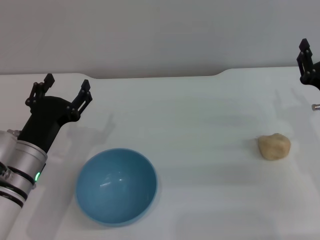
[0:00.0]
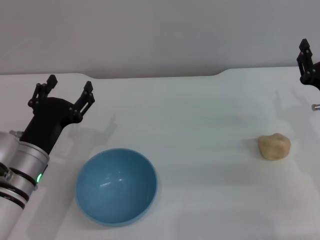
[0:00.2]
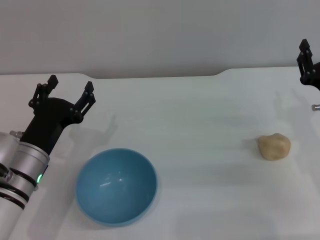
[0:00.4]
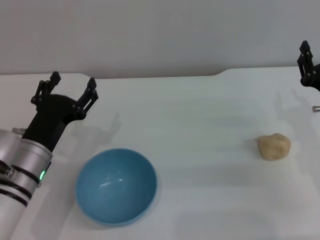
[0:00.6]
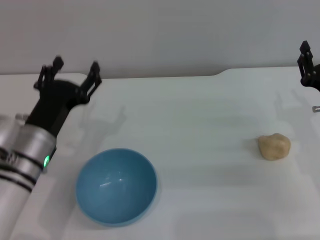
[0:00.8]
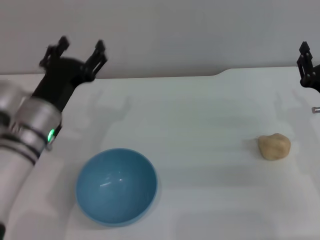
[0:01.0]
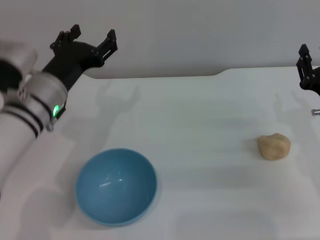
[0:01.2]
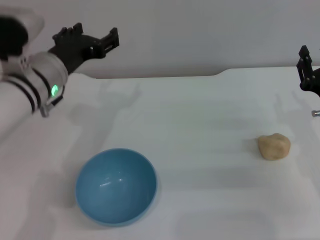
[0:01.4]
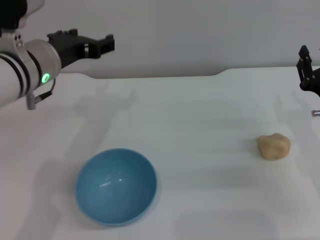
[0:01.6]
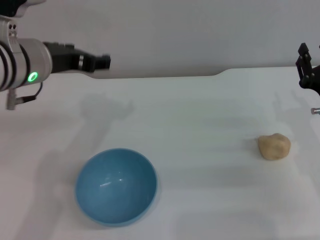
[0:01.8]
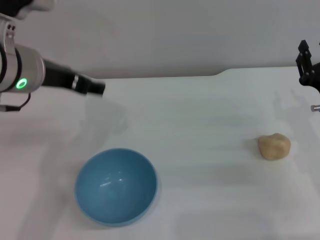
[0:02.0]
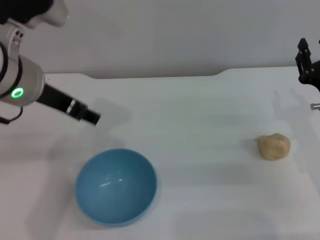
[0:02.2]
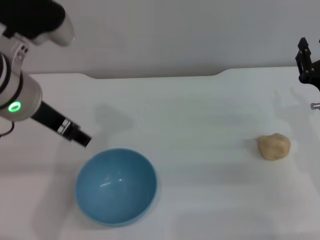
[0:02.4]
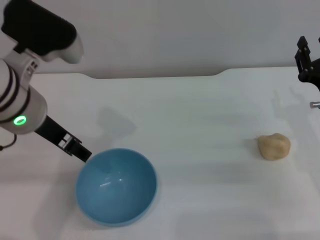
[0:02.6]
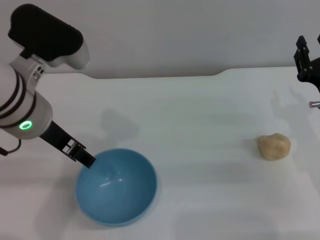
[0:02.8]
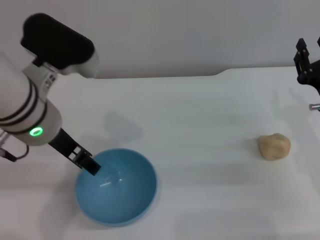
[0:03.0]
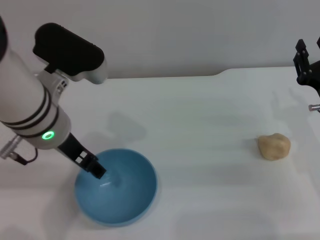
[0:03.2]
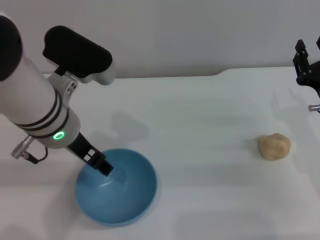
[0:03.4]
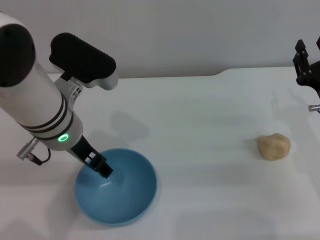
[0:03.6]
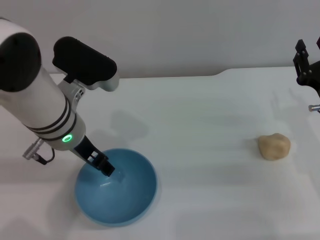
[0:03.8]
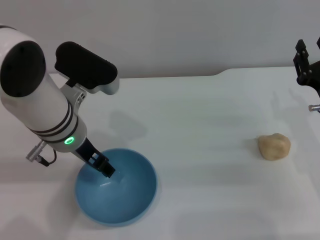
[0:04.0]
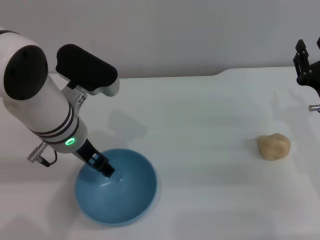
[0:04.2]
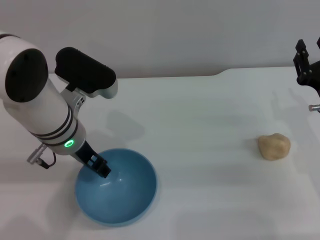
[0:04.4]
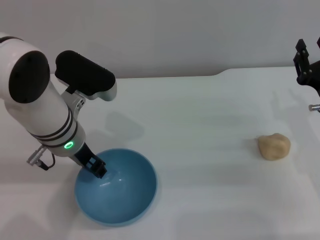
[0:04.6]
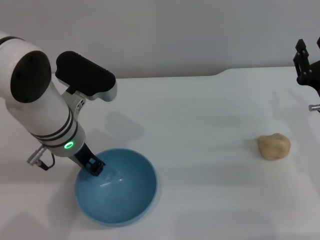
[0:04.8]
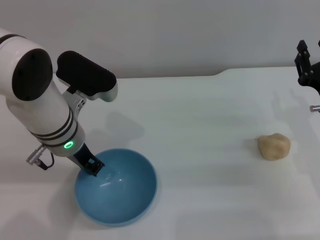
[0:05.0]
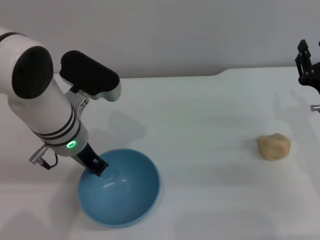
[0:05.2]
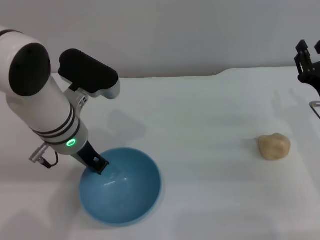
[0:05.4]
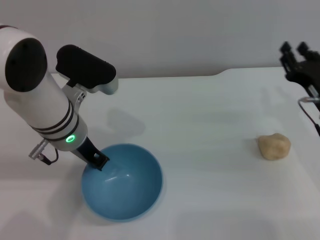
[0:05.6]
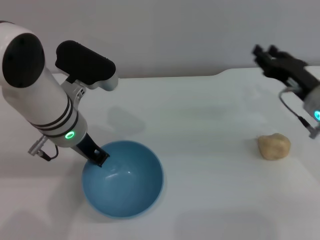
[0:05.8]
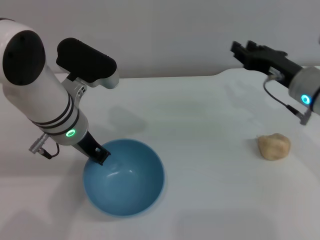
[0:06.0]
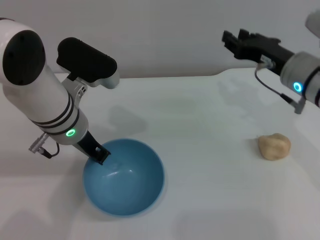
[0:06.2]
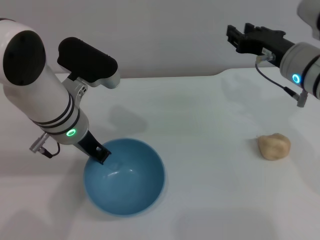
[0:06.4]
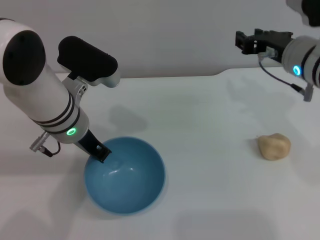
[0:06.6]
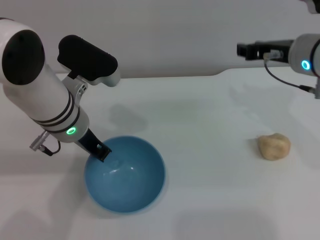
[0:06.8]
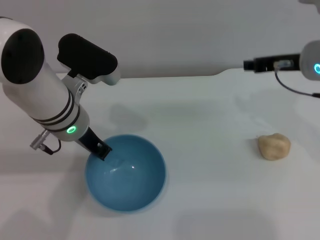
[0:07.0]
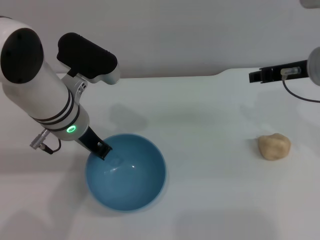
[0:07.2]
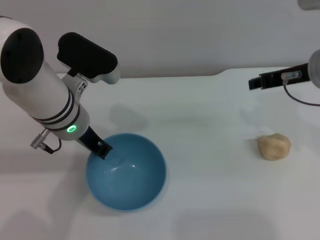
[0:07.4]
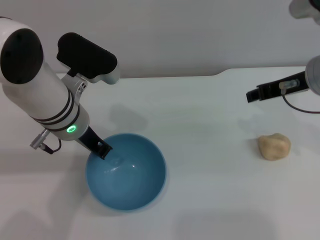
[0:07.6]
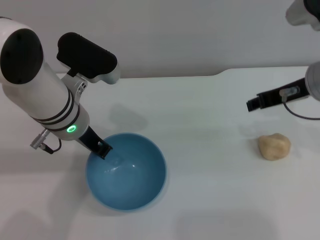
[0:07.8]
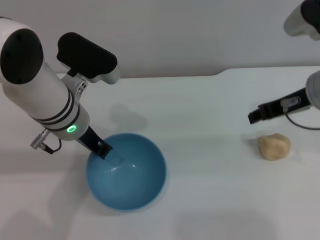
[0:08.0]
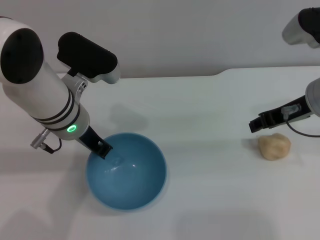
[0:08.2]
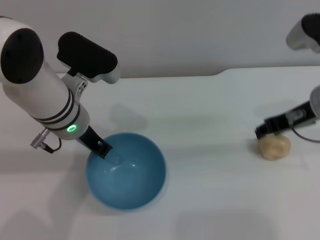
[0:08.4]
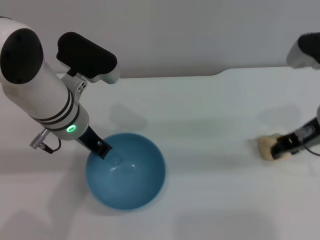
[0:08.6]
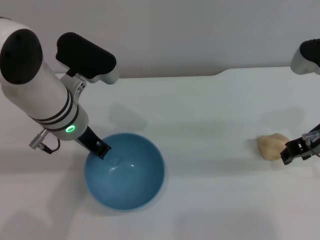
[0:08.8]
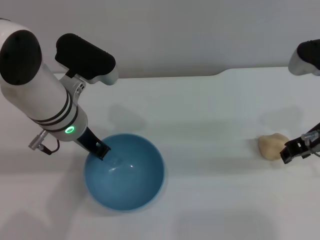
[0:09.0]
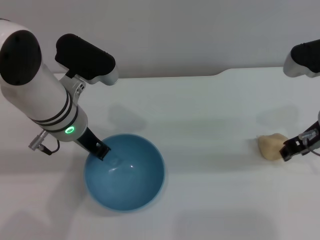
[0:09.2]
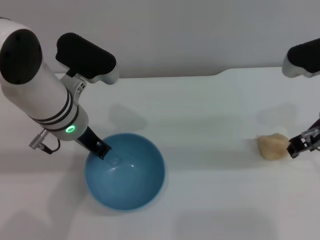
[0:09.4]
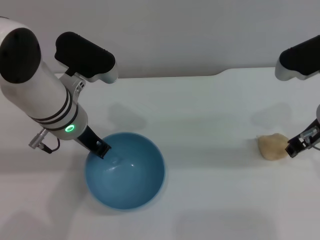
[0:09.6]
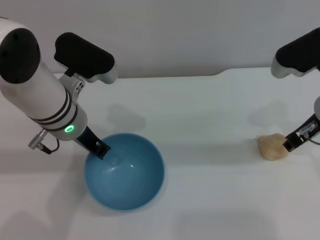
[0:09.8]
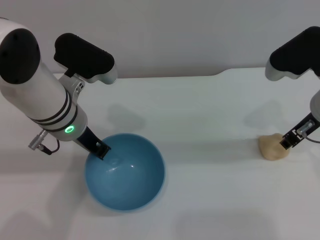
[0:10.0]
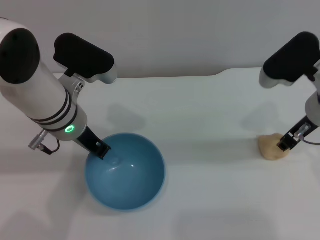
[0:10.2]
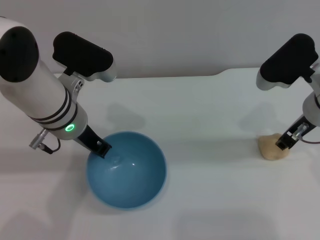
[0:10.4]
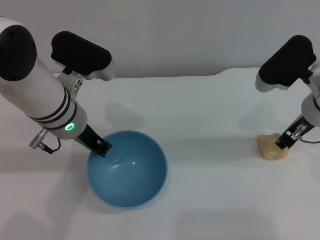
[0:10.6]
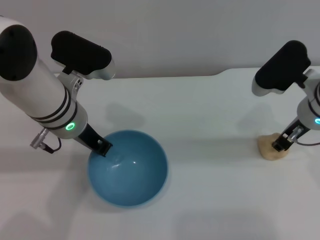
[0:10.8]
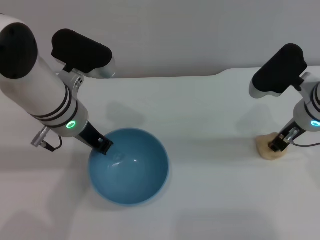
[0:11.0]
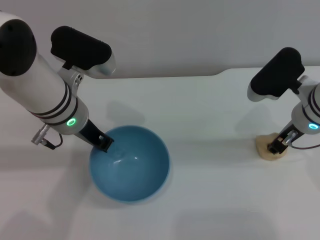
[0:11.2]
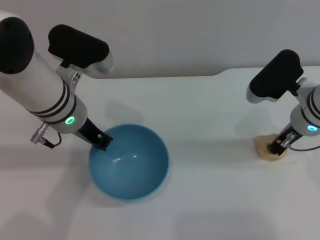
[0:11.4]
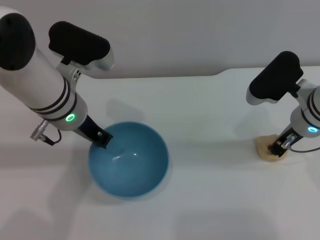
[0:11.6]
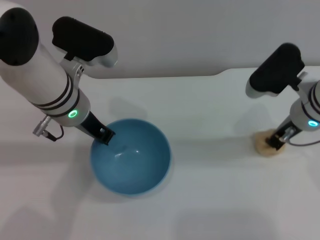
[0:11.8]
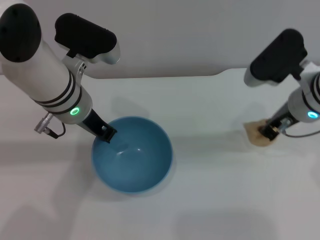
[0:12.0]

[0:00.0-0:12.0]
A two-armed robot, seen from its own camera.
Task of the whole recording: put the egg yolk pastry into the blue bowl and pour it out repeatedly.
Step, 0:00.0 to 0:06.6: Pick up the bowl with the left gripper.
0:00.0 to 0:01.6: The left gripper goes about 15 cm upward and forward.
0:01.6 to 0:03.0: The left gripper shifts by approximately 5 cm.
0:03.0 to 0:04.4: The left gripper heads downward, covering approximately 5 cm.
0:04.4 to 0:06.0: The left gripper closes its fingers. Meanwhile the right gripper is displaced forward by roughly 5 cm.
0:06.0 to 0:07.6: The right gripper goes approximately 10 cm upward.
0:10.4 to 0:12.0: The right gripper closes up.

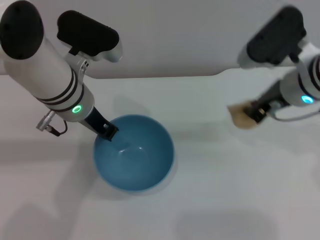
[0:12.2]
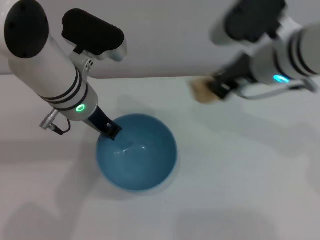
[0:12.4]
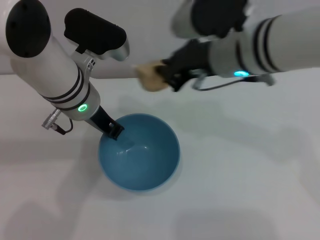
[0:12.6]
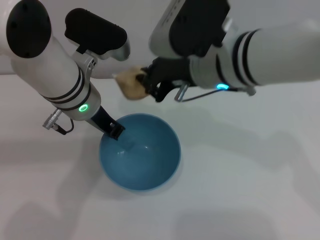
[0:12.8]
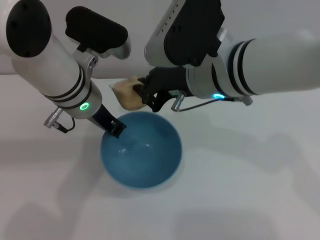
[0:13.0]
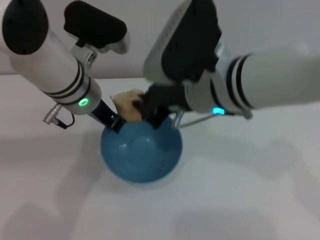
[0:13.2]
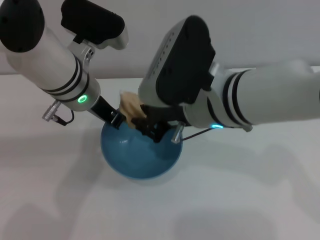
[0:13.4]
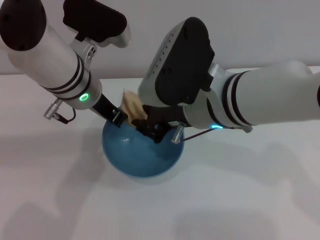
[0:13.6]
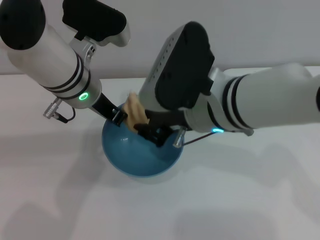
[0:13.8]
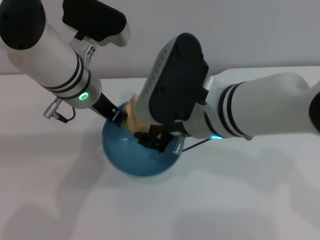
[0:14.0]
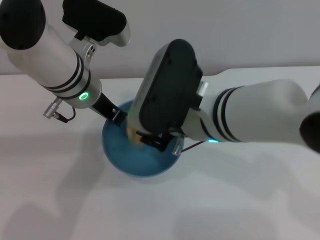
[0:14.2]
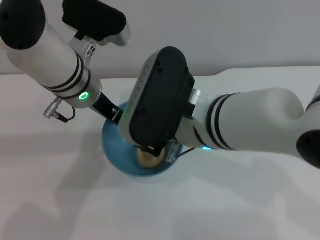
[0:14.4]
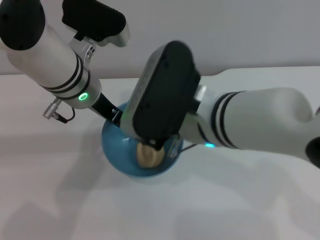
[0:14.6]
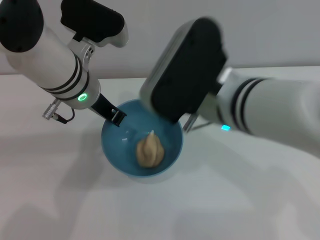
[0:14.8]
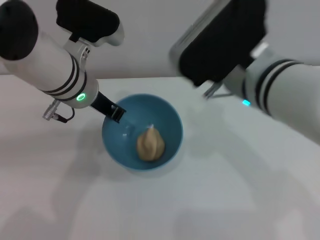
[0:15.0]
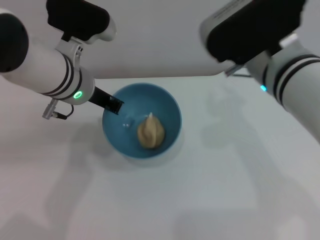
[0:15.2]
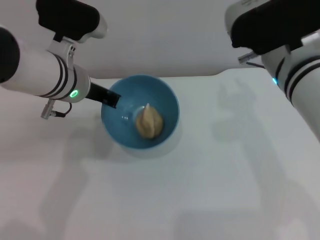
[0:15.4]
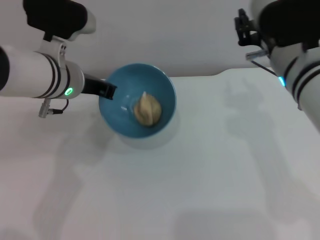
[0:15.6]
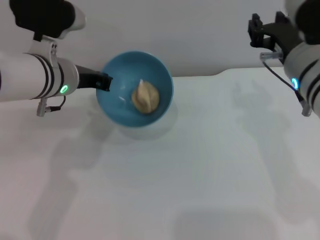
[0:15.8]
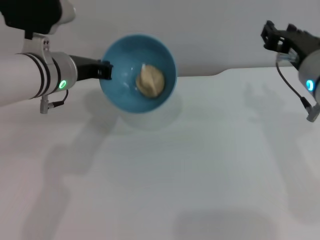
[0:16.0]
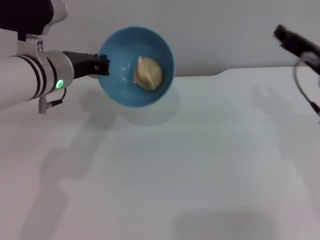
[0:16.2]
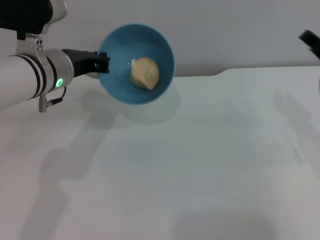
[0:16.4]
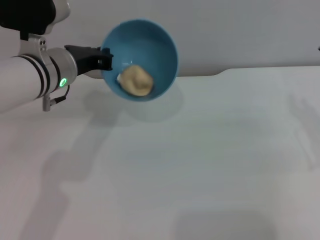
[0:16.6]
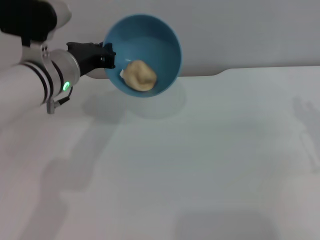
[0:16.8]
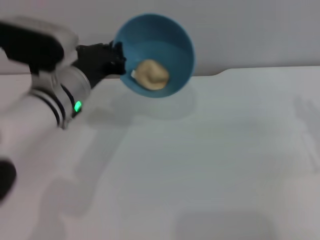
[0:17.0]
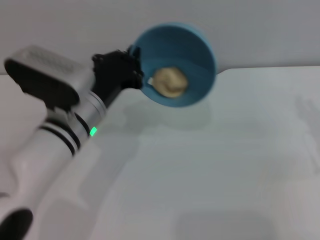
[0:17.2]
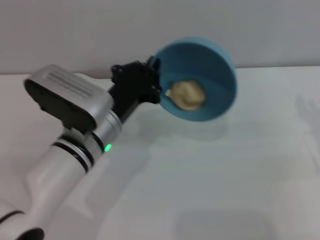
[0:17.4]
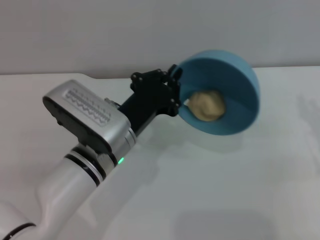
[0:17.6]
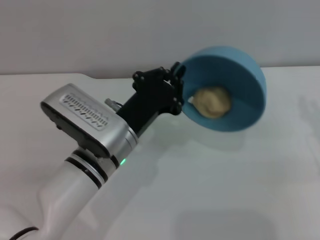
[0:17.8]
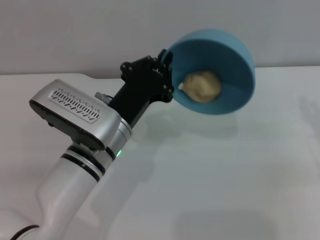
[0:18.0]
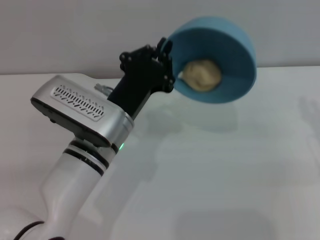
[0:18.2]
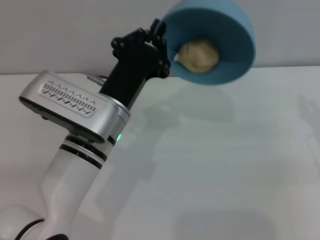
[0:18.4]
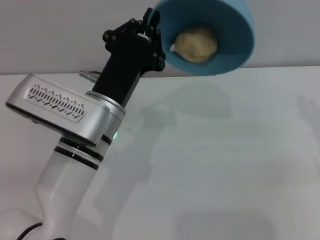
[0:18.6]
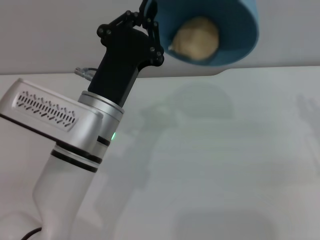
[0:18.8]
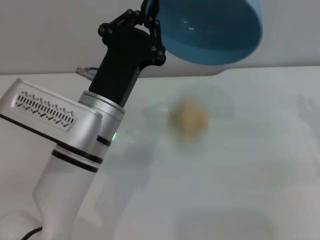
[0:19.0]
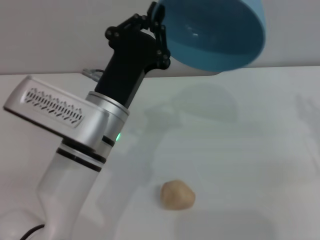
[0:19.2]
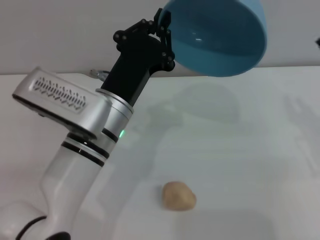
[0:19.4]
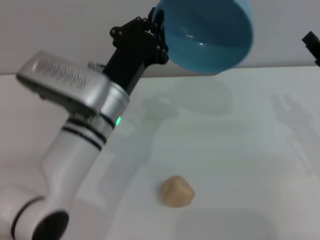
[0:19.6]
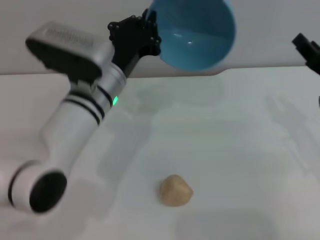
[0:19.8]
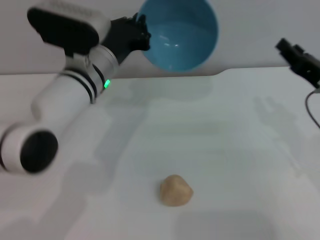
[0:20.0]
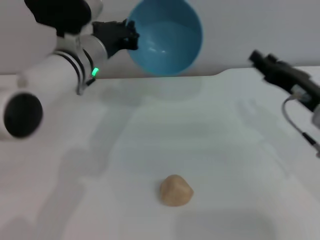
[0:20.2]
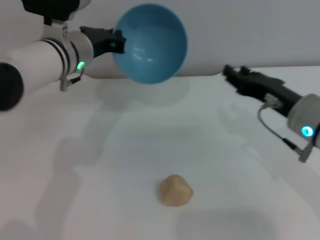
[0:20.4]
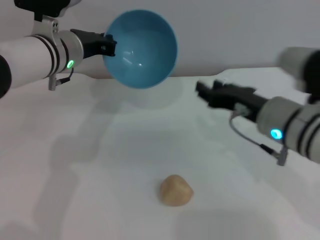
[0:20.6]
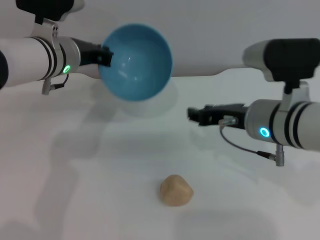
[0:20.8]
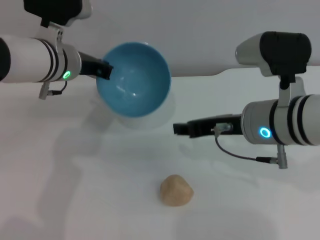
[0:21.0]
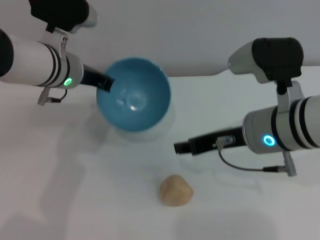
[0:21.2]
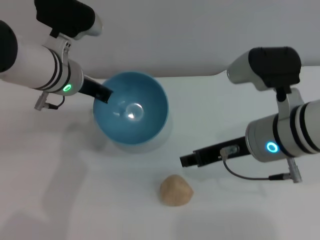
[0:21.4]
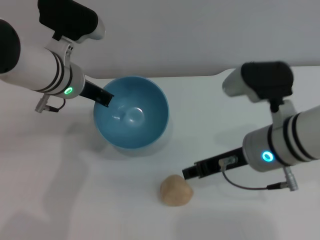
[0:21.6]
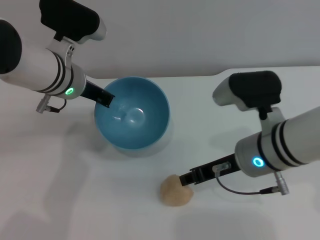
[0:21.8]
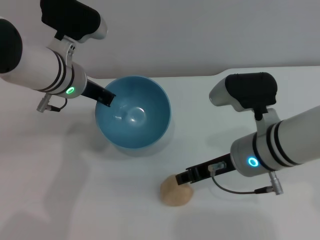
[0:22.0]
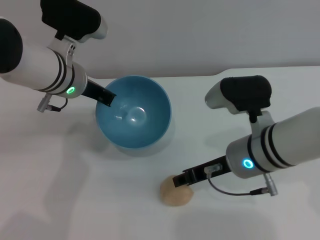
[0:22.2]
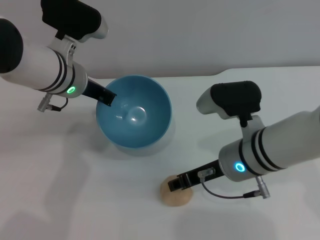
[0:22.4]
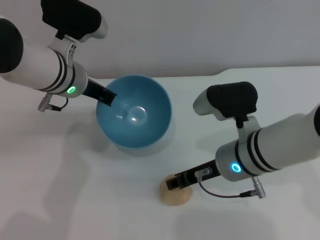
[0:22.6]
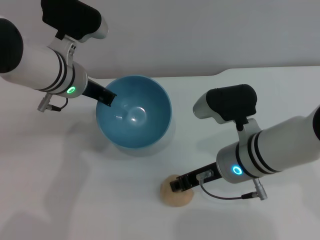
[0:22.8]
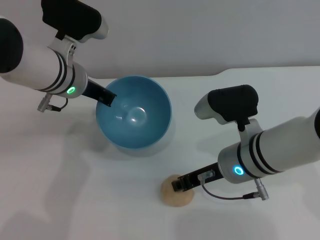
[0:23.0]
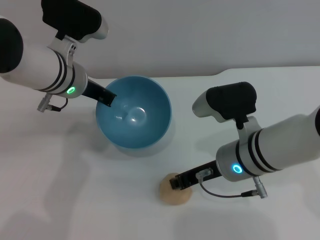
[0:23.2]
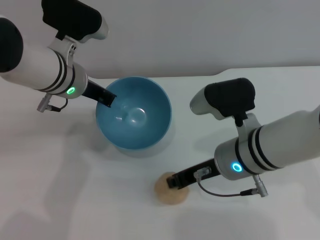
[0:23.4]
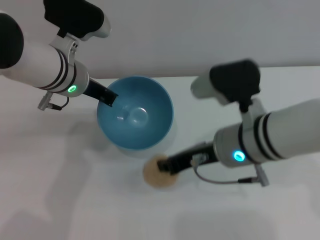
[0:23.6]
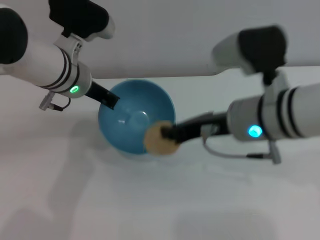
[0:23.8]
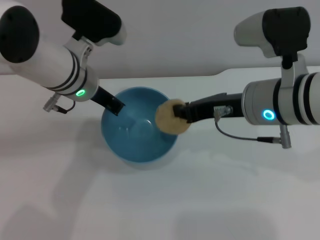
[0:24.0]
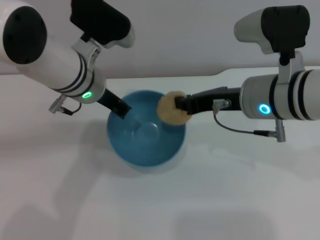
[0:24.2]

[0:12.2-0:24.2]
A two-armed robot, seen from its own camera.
Task of the whole recording: put the egg yolk pastry into the blue bowl and pour it out repeatedly.
Step, 0:12.4 to 0:14.8: Place the egg yolk pastry into the bowl.
Step, 0:15.0 to 0:19.2: Pour the egg yolk pastry out of bowl.
Step, 0:19.4 to 0:23.6: Pick up the egg yolk pastry with the right gripper.
0:12.2 to 0:13.8: The right gripper goes about 15 cm to the left and backward.
0:13.8 to 0:15.2: The right gripper moves to the right, approximately 5 cm, and opens up.
0:15.2 to 0:16.6: The right gripper moves to the right and downward, approximately 20 cm.
0:16.6 to 0:18.2: The left gripper moves backward, to the right and downward, roughly 15 cm.
0:18.2 to 0:19.8: The left gripper shifts approximately 5 cm forward.
0:19.8 to 0:21.2: The right gripper travels to the left by some 15 cm, while the left gripper travels to the left and forward by some 10 cm.
0:21.2 to 0:22.6: The right gripper shifts about 5 cm downward.
0:22.6 to 0:24.2: The right gripper heads upward, covering about 10 cm, and closes its fingers.
